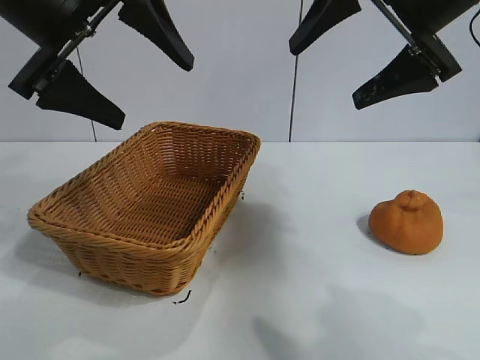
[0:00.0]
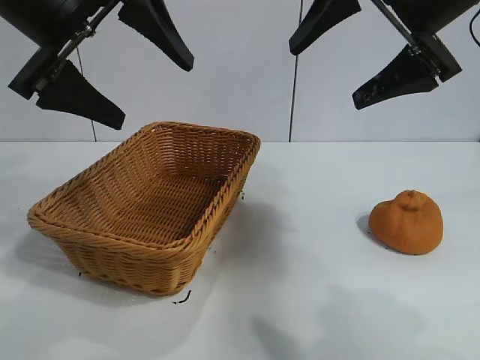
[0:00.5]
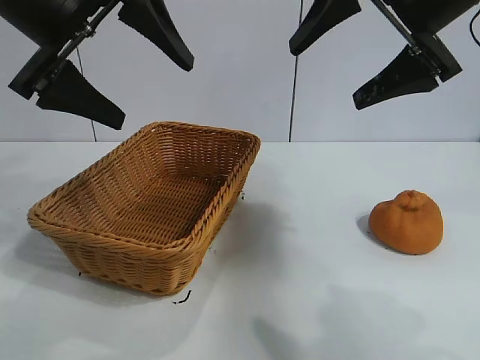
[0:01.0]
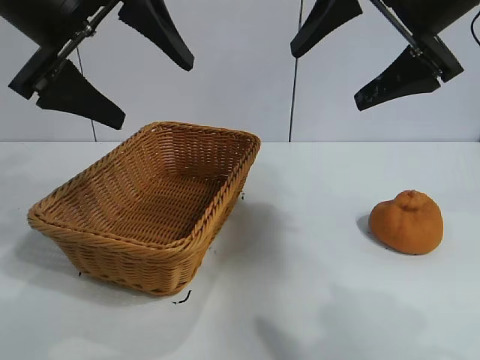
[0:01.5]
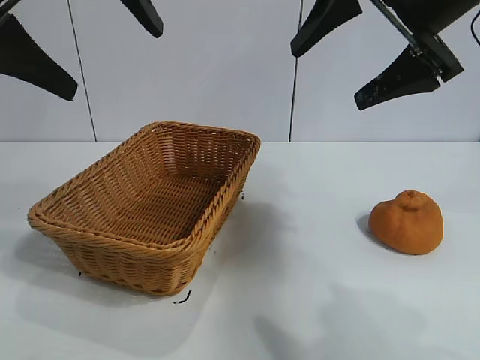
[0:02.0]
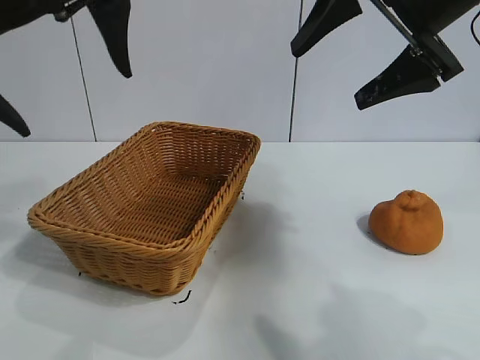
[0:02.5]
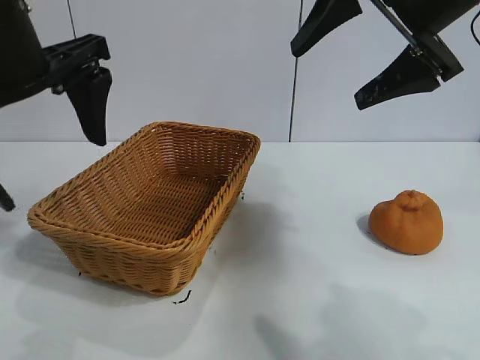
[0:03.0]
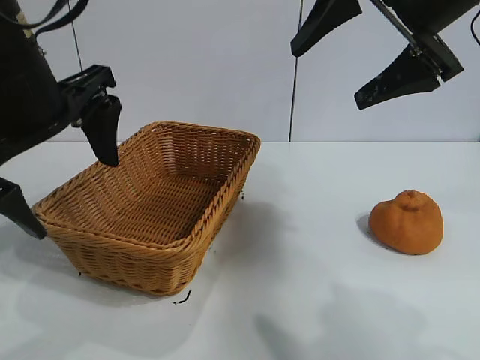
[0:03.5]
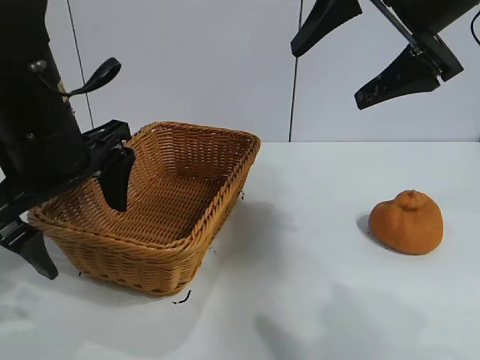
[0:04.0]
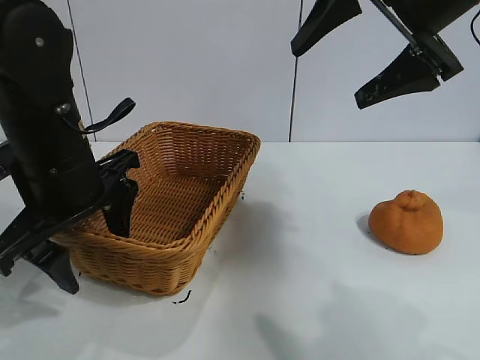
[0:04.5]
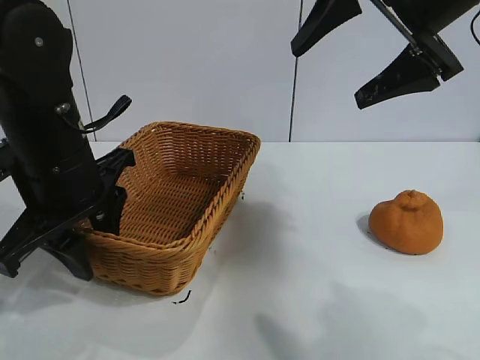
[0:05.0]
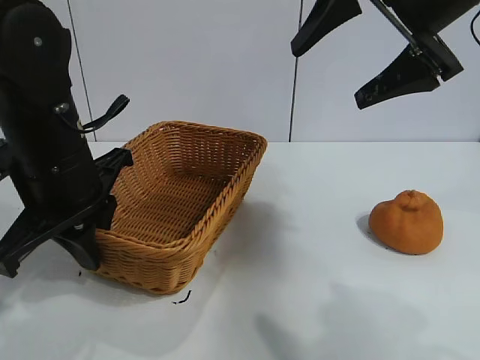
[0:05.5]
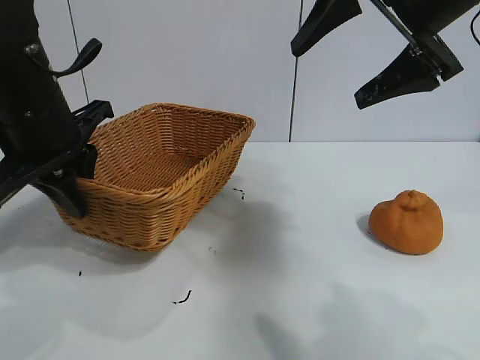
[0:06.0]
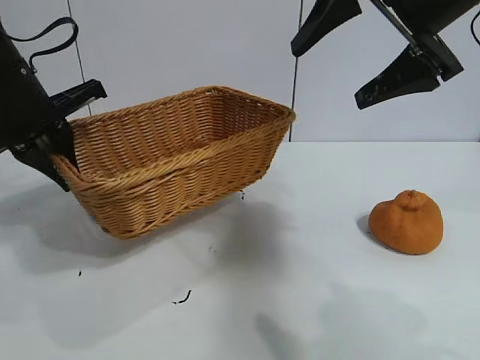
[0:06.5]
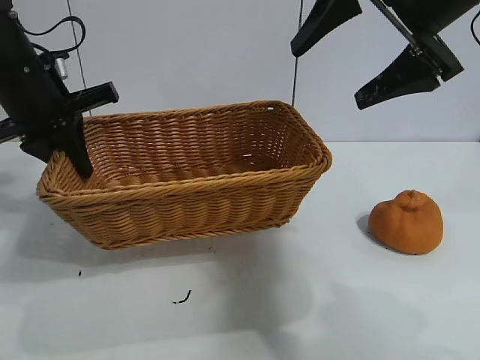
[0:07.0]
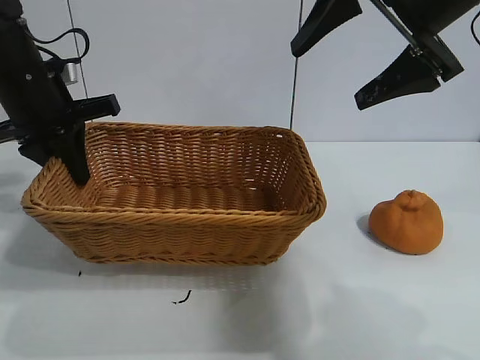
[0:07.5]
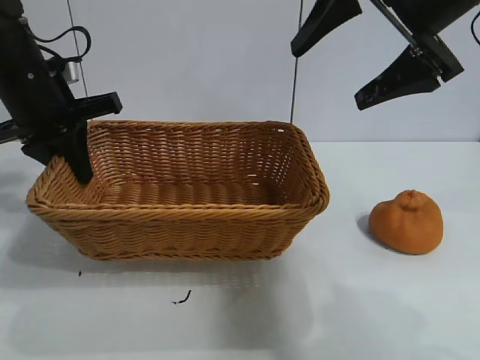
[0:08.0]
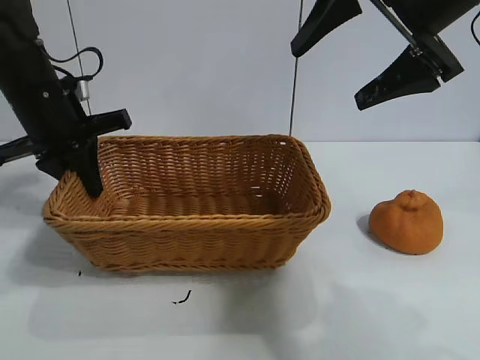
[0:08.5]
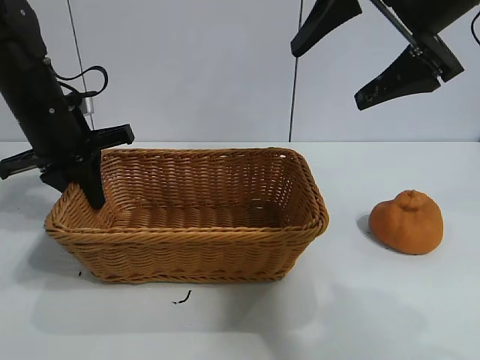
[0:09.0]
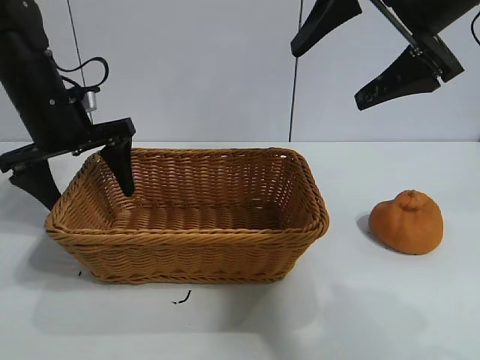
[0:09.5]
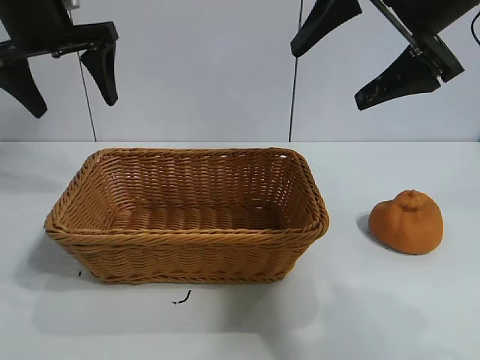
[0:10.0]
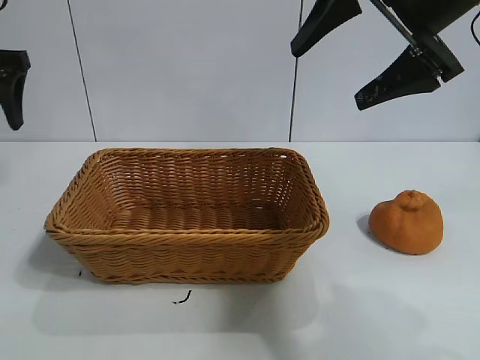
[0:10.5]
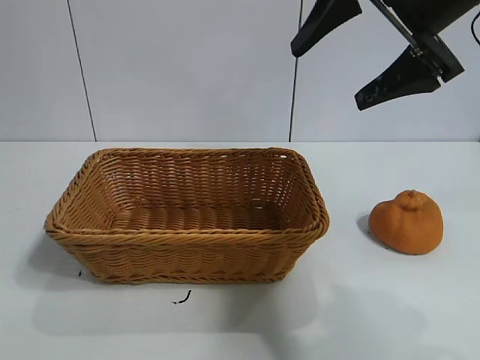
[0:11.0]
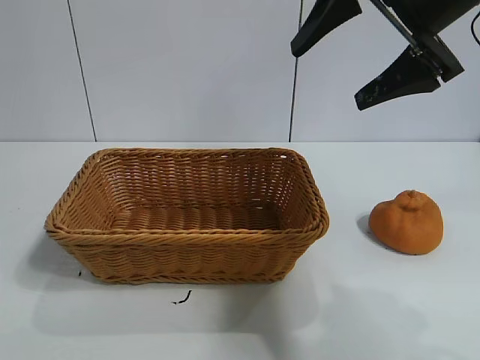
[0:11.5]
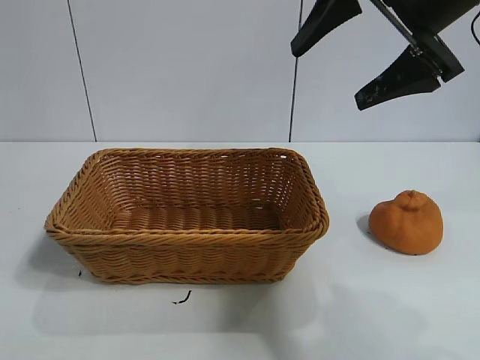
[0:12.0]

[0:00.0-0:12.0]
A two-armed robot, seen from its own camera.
Task of the whole recording: pick up the orange and put it into the basket.
Step, 0:02.0 to 0:05.0: Grasp the basket with left gripper.
Step, 0:05.5 to 0:09.0: Place the basket in the center of view with left gripper.

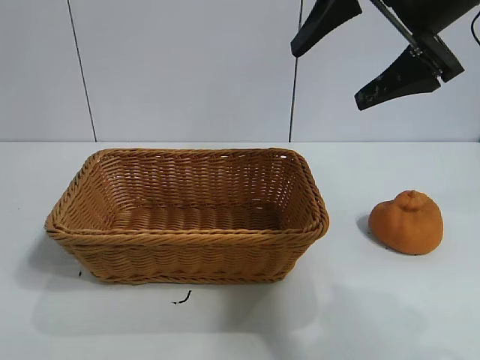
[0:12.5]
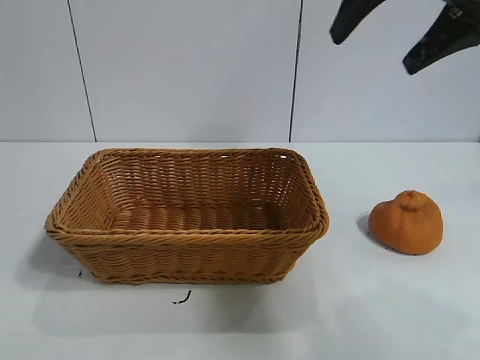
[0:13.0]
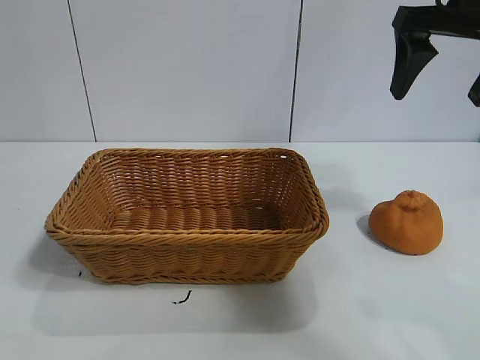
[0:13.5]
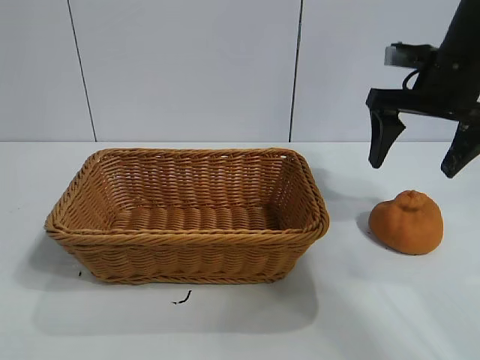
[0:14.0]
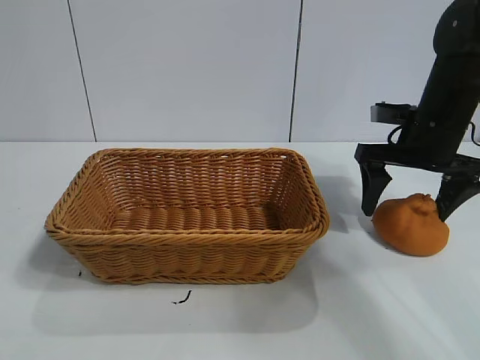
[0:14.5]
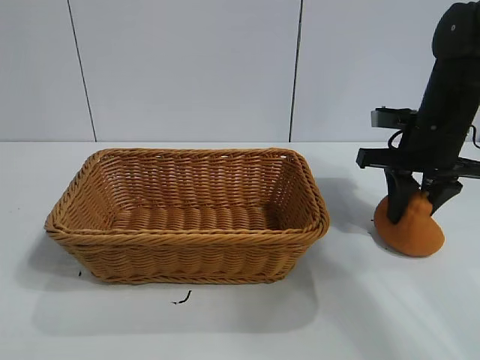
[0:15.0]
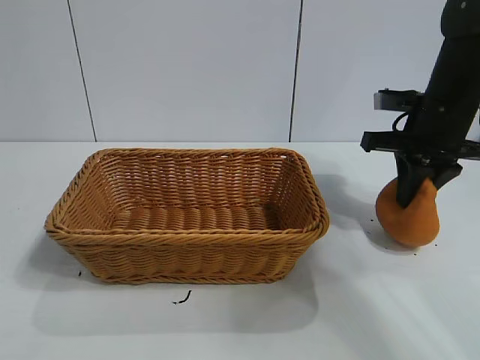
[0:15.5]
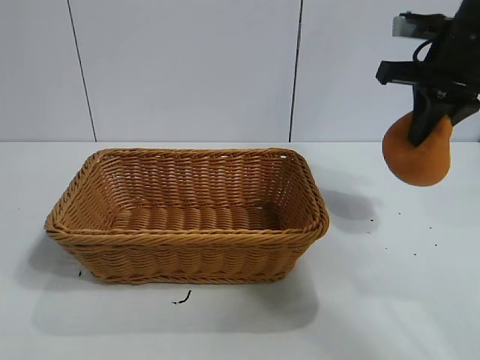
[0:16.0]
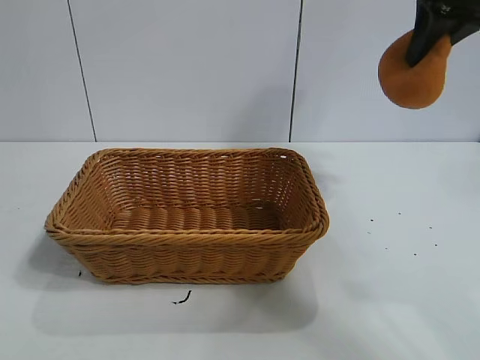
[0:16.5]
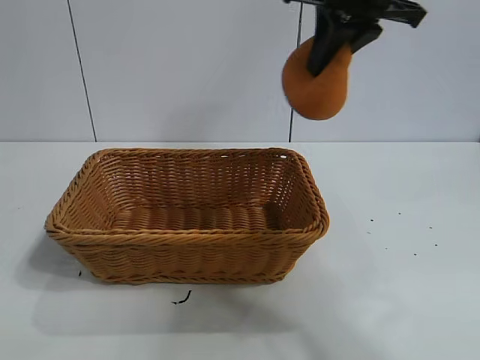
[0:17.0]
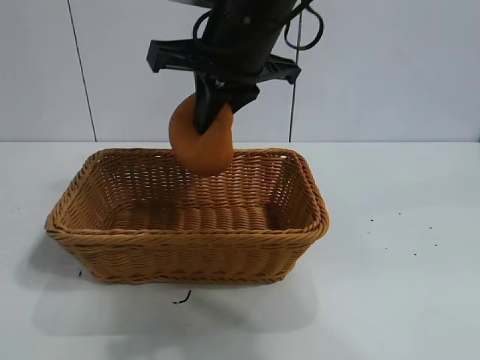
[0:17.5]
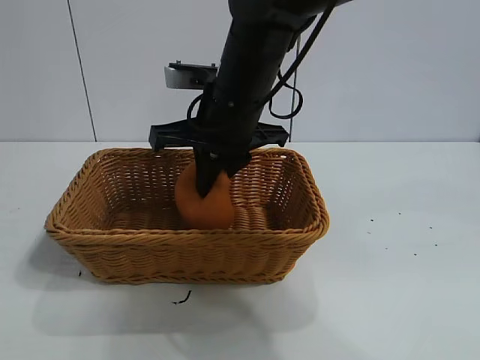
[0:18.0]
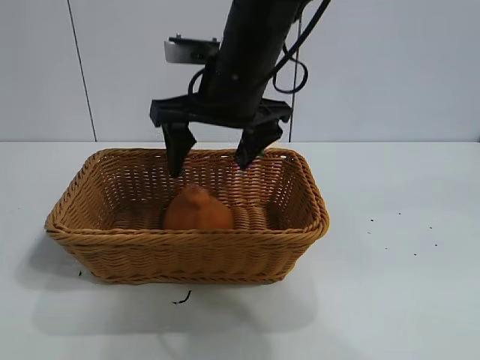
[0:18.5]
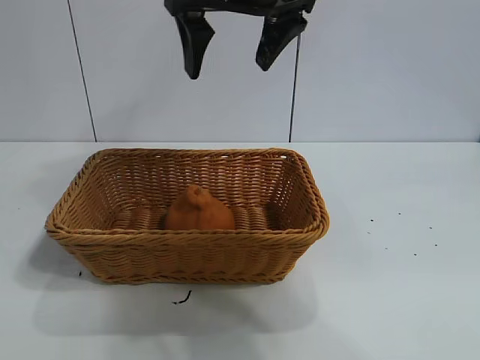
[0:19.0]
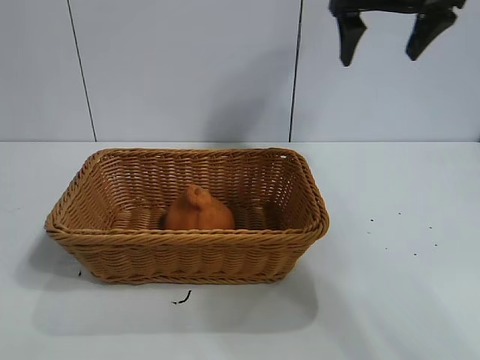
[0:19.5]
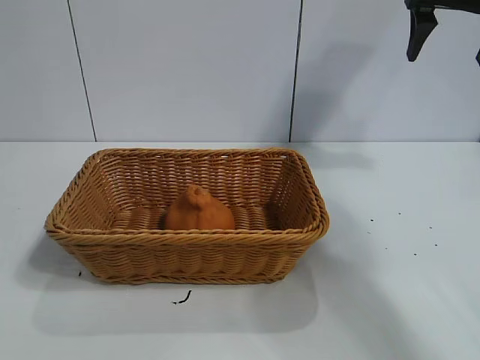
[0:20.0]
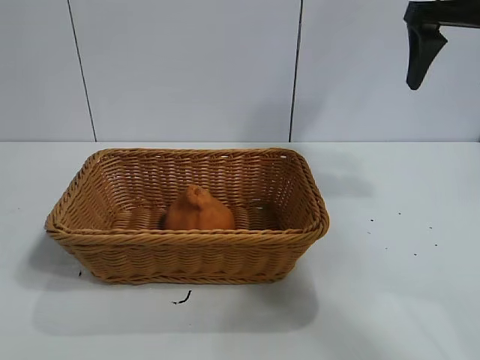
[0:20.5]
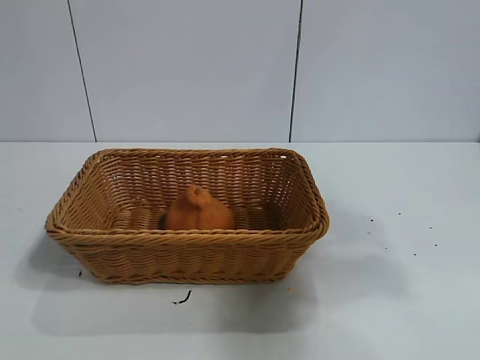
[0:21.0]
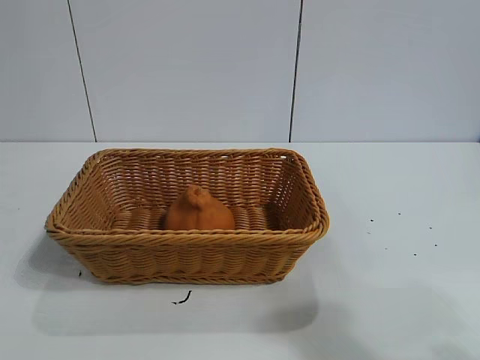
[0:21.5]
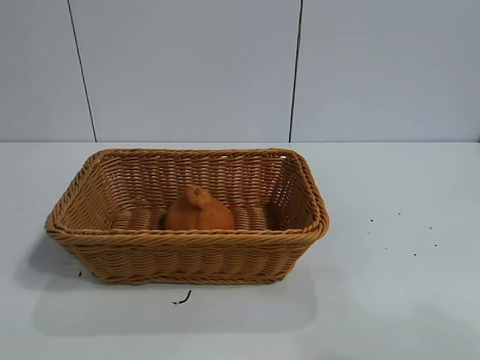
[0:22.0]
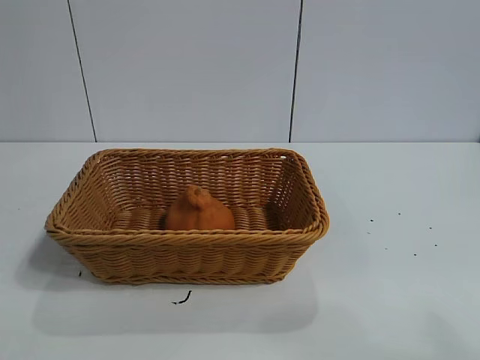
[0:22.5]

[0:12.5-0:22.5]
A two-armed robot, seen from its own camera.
Task of the whole recording: pick up the orange and put it into the basket.
Step, 0:12.5 to 0:15.0: Grasp the orange with right gripper.
Step, 0:16.0 to 0:18.0: Place the orange in the basket with right gripper.

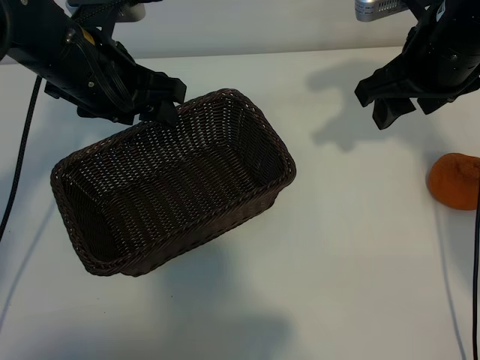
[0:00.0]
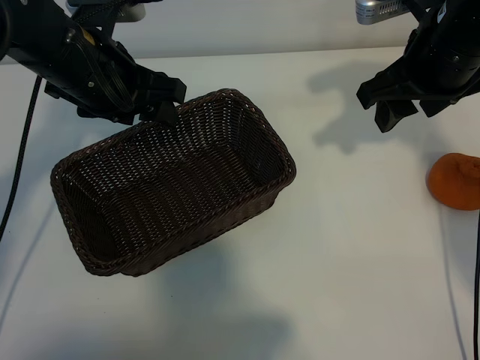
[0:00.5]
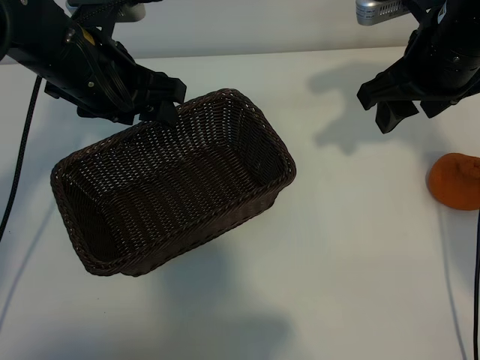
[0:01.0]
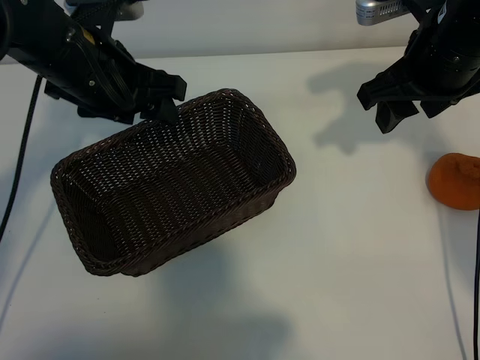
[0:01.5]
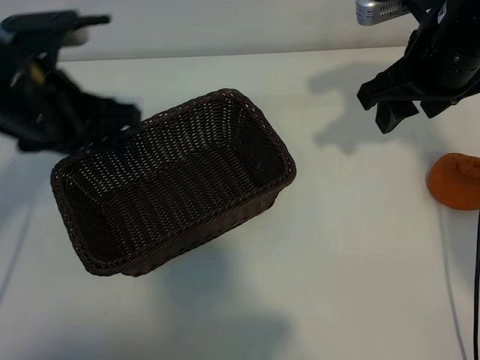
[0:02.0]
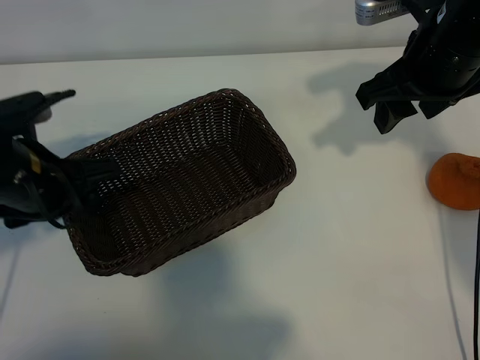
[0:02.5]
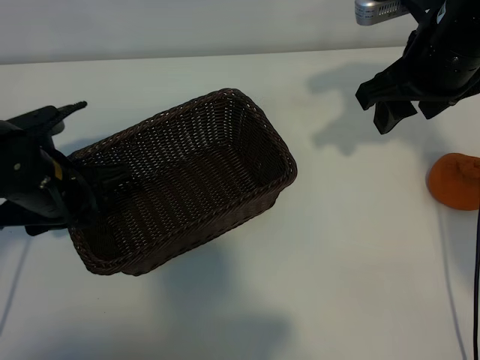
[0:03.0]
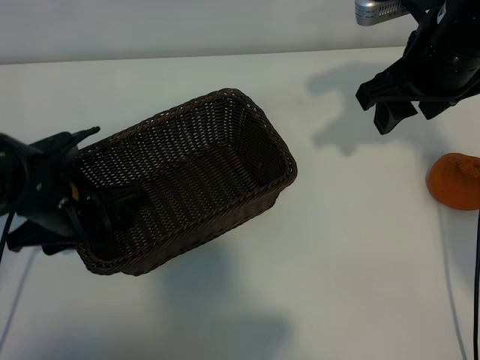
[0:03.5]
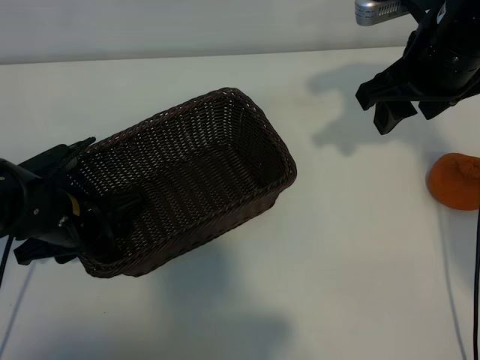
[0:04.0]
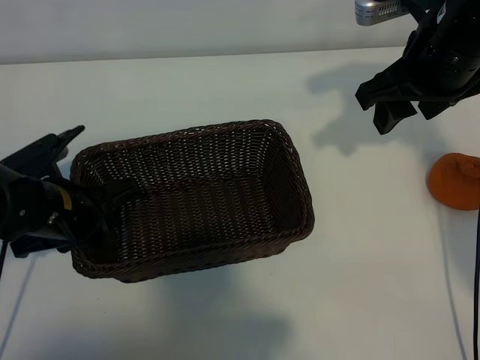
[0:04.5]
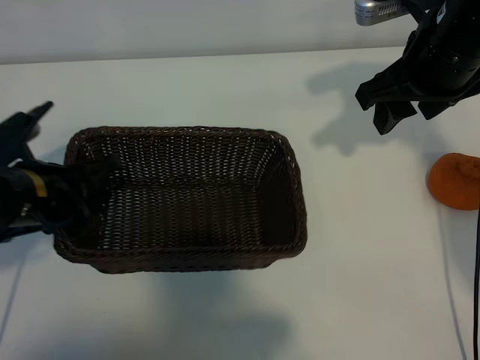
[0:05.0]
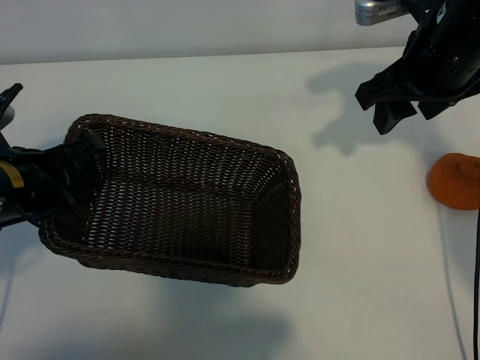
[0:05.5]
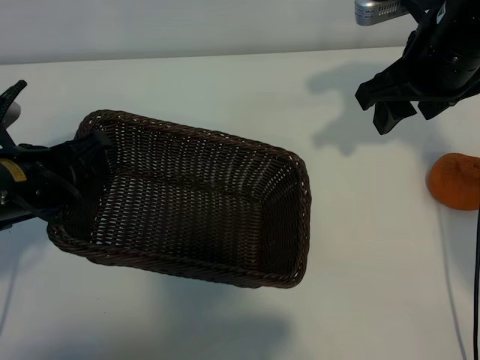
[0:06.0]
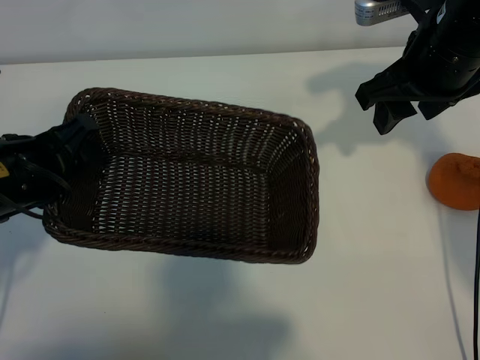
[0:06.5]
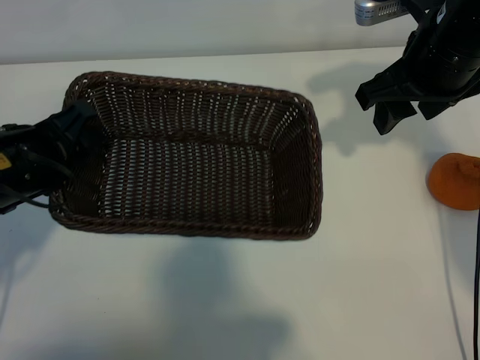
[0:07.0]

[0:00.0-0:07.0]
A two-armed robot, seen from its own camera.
Task of the whole recording: pick up the orange and put it into the basket.
Step, 0:01.5 to 0:04.0: Grasp the basket with left gripper.
